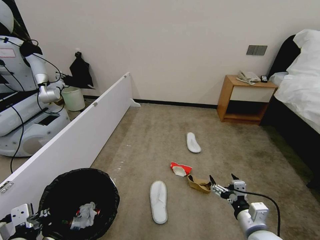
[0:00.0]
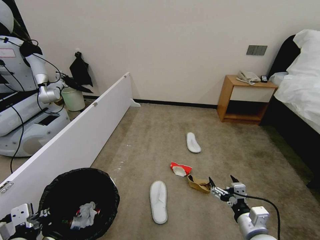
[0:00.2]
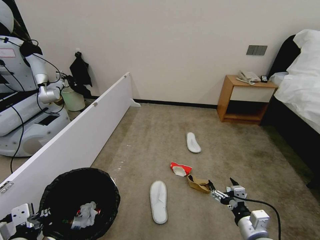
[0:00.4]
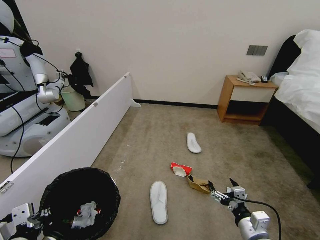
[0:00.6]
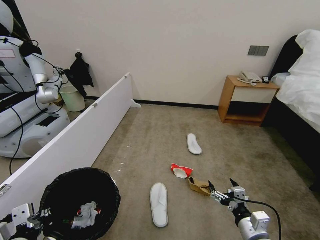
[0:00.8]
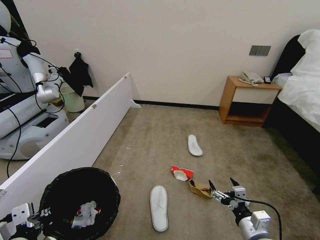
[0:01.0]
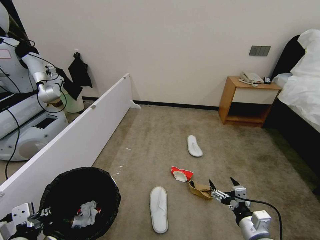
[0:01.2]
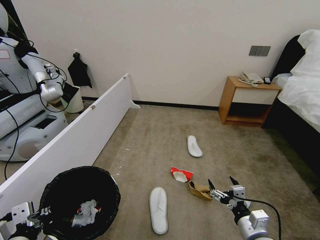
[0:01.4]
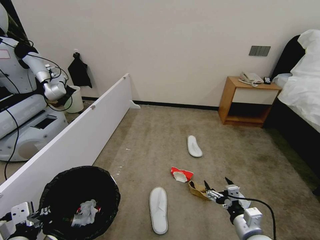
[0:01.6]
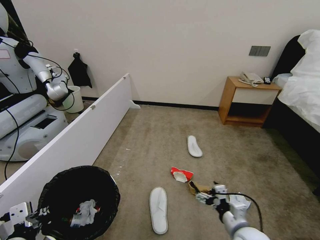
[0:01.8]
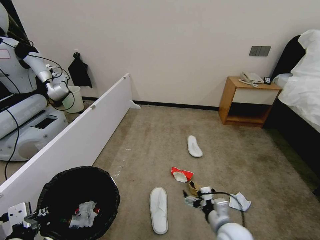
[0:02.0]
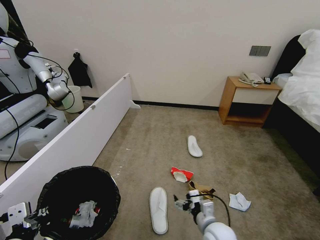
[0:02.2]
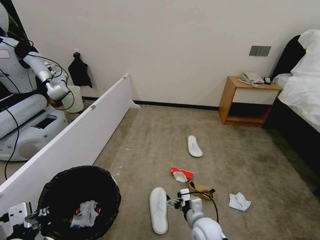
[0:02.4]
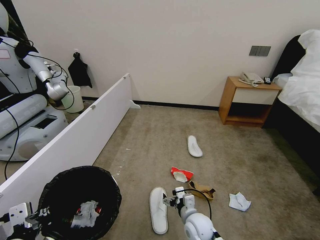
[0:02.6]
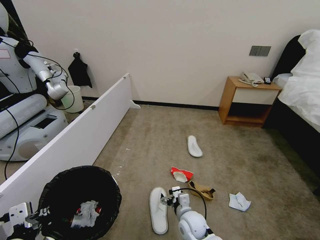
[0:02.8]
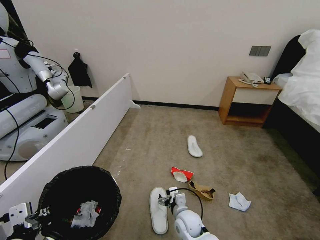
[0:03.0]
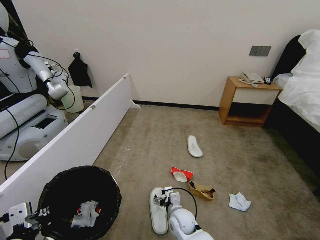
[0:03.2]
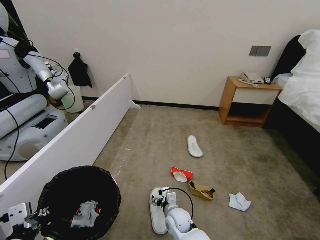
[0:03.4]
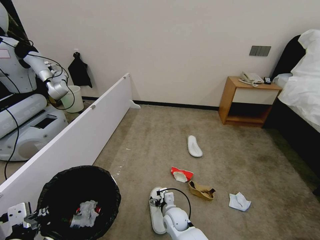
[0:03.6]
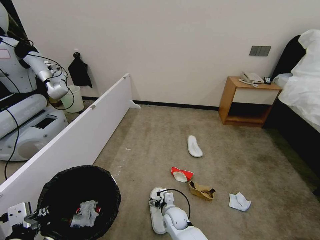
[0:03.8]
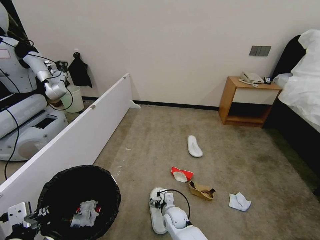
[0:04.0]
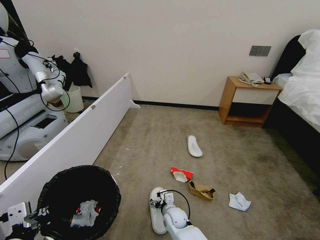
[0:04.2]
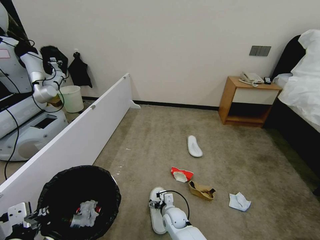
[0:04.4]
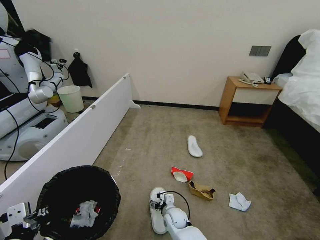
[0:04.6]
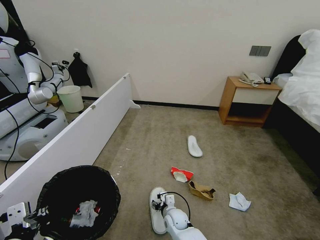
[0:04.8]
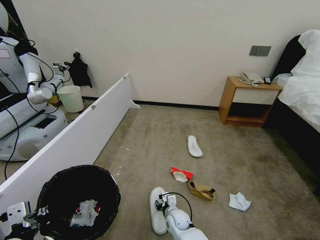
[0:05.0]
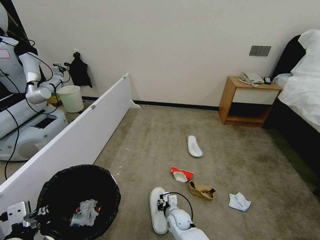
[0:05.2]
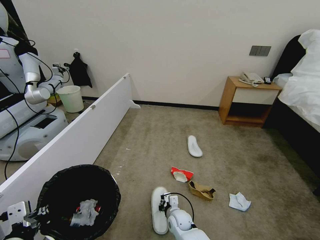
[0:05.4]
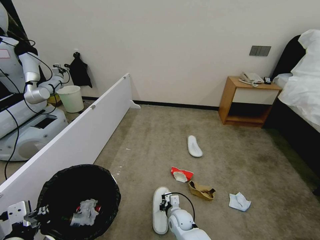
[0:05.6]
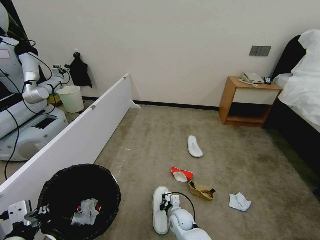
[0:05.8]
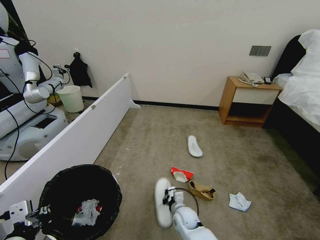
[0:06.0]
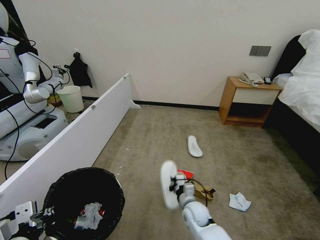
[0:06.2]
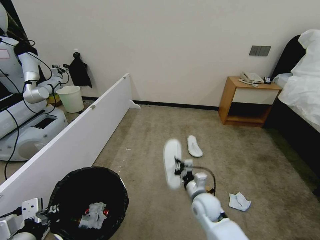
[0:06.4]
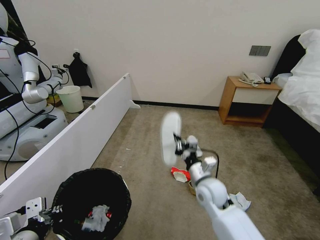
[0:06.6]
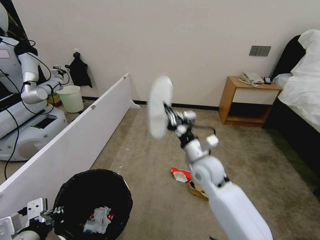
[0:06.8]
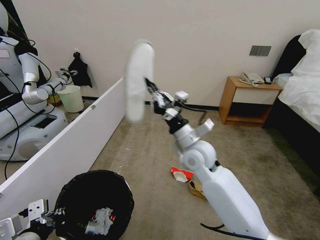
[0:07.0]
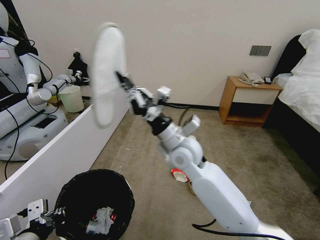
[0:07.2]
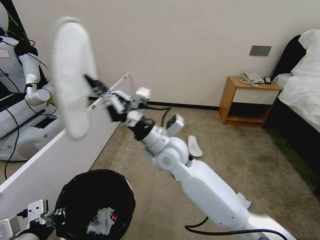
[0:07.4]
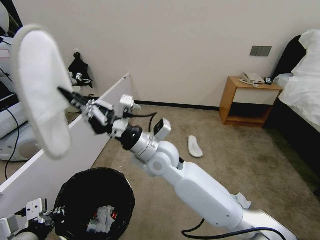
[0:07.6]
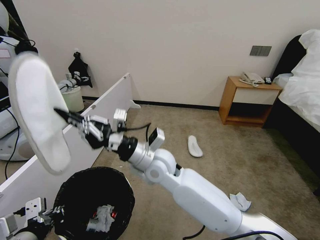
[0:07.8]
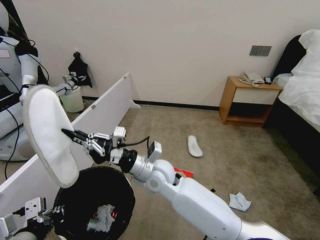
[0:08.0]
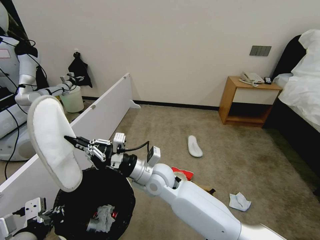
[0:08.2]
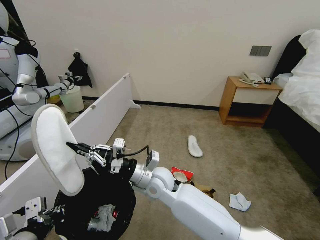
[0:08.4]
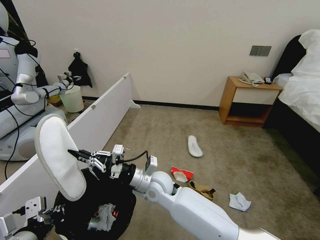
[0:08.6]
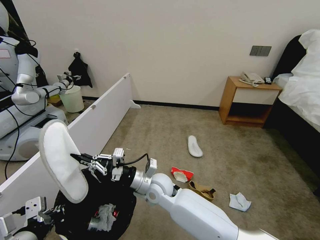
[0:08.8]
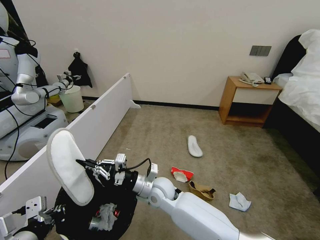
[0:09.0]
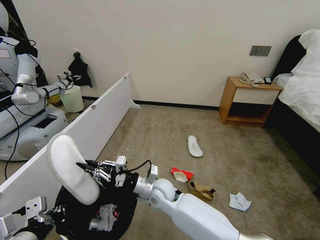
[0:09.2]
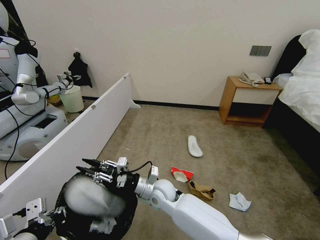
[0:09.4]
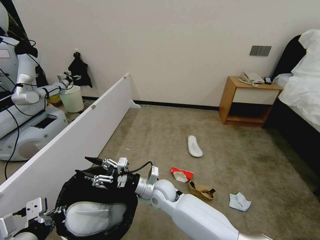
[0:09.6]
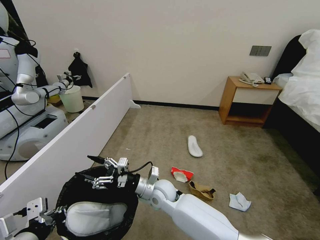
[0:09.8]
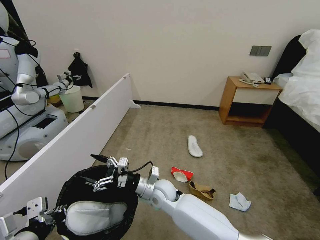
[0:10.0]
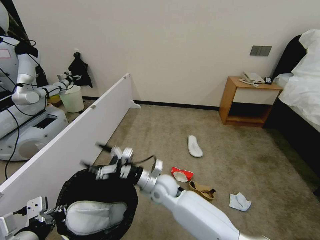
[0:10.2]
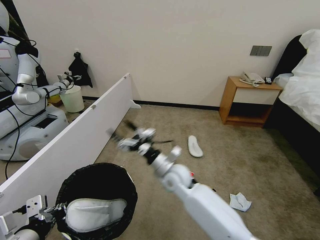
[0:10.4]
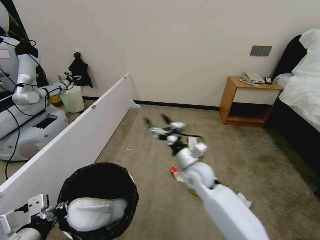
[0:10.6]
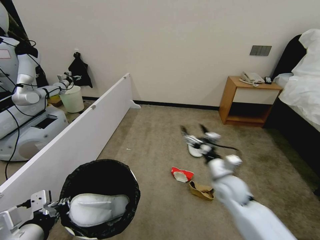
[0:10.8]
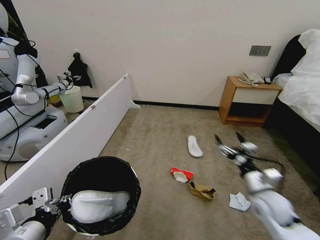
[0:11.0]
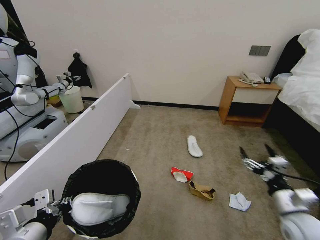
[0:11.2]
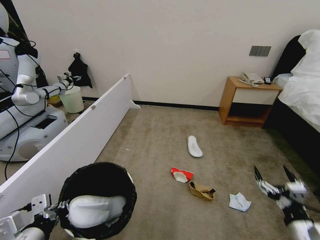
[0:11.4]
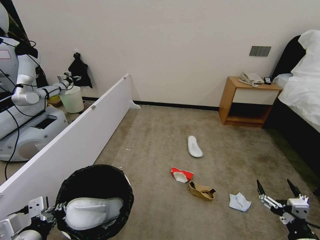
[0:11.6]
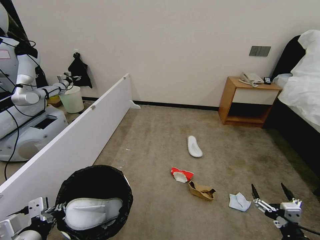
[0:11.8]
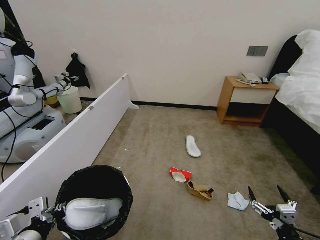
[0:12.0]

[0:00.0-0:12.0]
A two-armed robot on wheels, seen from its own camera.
Task of the whole recording: Pick up the trash bin, then pick up the garbage from the floor and place it into the trash bin.
0:00.0 to 0:01.6: The grippers stay close to where they were, moving slightly.
0:01.6 to 0:03.0: The right gripper travels to the left, forward and downward by approximately 25 cm.
0:03.0 to 0:04.4: The right gripper travels downward by some 5 cm.
0:04.4 to 0:06.0: The right gripper closes.
0:06.0 to 0:07.6: The right gripper shifts about 40 cm upward.
0:07.6 to 0:09.0: The right gripper heads downward, covering about 15 cm.
0:09.0 to 0:10.4: The right gripper travels to the right by some 5 cm, and opens its fingers.
0:10.4 to 0:12.0: The right gripper goes approximately 40 cm to the right and backward.

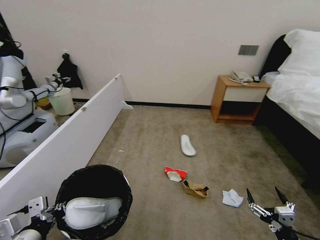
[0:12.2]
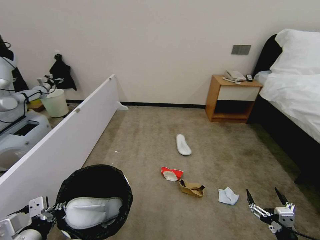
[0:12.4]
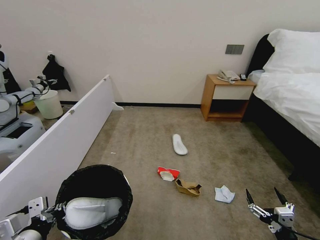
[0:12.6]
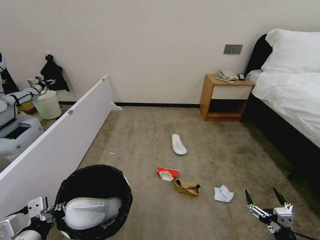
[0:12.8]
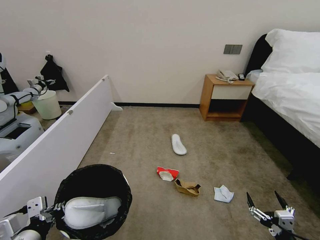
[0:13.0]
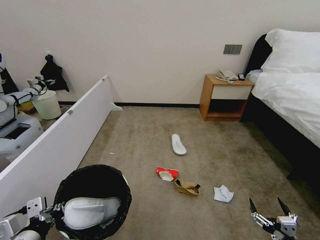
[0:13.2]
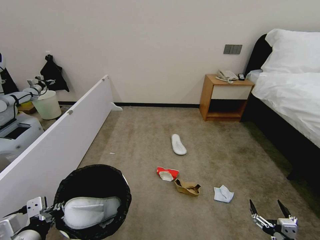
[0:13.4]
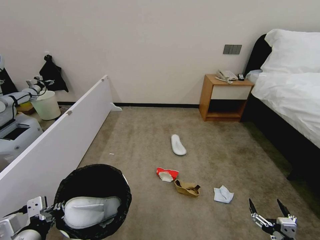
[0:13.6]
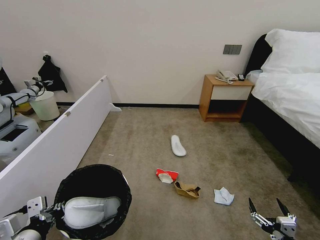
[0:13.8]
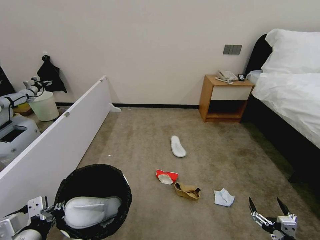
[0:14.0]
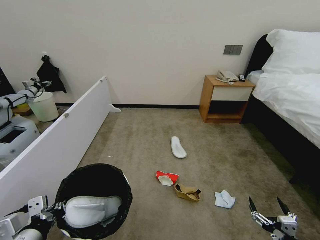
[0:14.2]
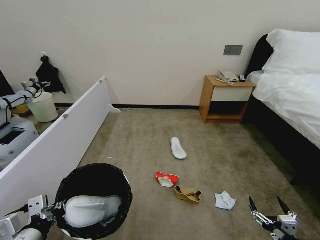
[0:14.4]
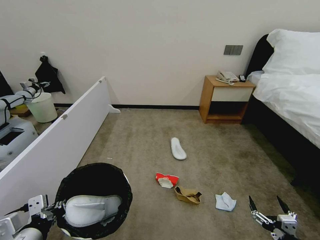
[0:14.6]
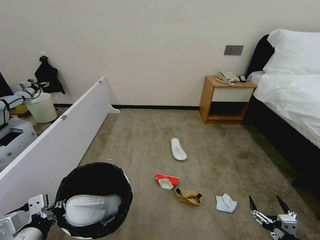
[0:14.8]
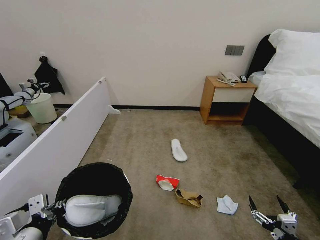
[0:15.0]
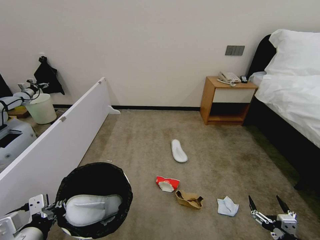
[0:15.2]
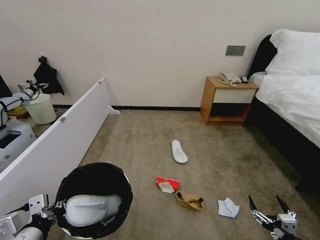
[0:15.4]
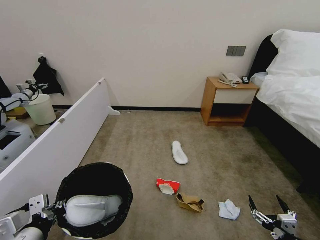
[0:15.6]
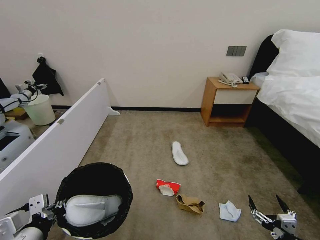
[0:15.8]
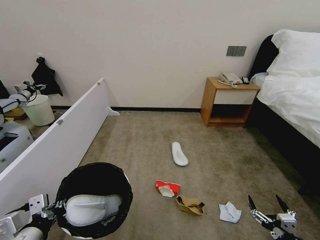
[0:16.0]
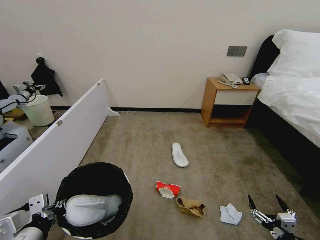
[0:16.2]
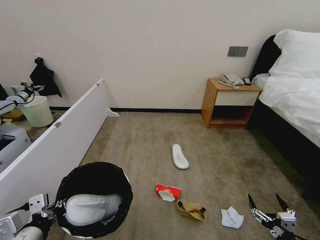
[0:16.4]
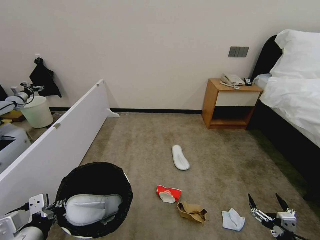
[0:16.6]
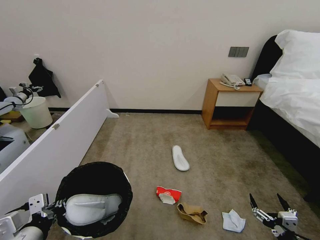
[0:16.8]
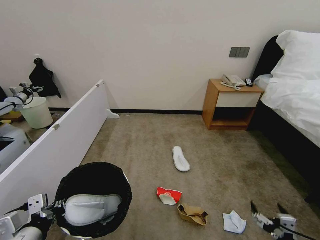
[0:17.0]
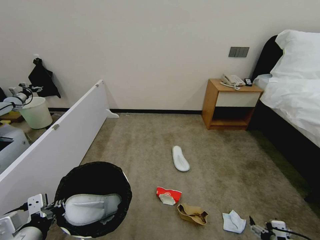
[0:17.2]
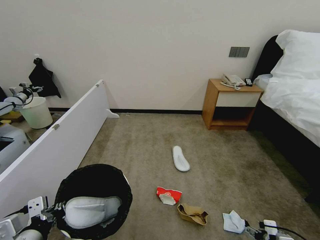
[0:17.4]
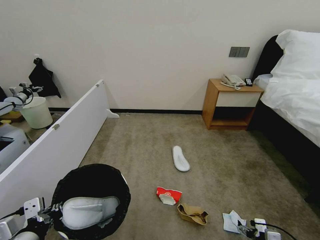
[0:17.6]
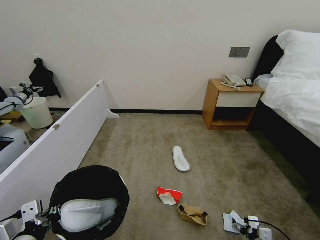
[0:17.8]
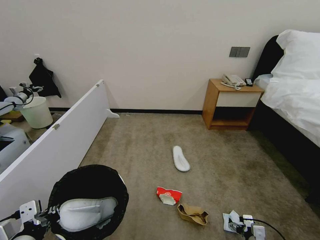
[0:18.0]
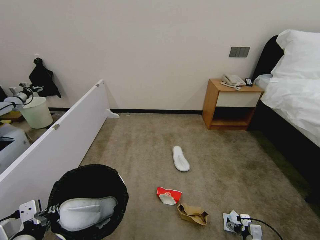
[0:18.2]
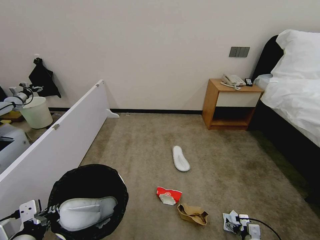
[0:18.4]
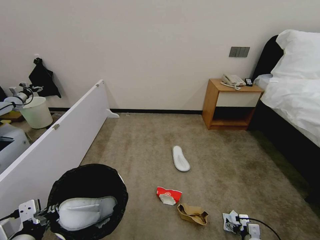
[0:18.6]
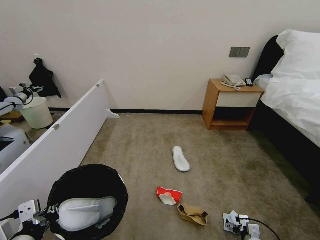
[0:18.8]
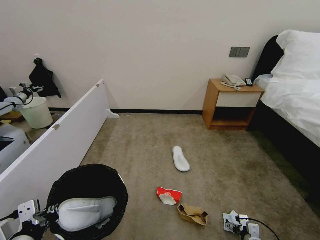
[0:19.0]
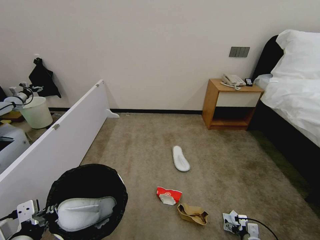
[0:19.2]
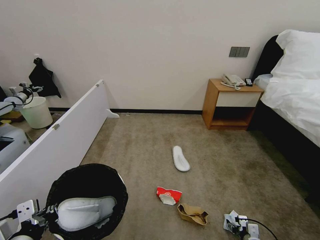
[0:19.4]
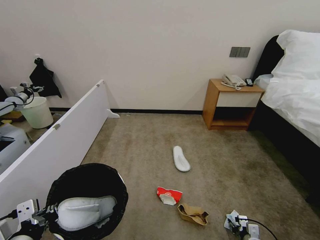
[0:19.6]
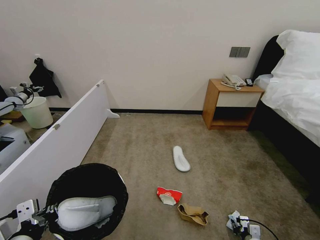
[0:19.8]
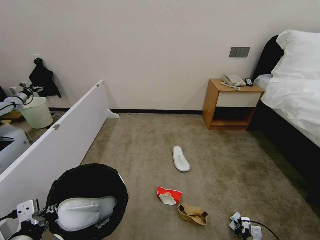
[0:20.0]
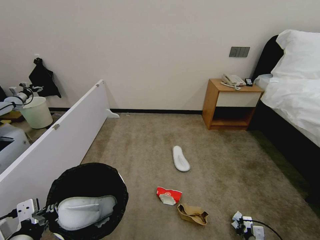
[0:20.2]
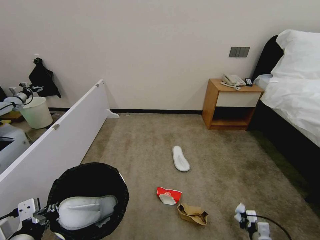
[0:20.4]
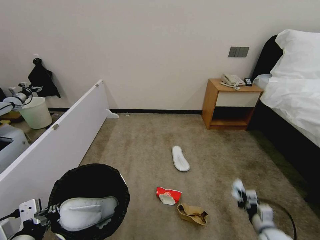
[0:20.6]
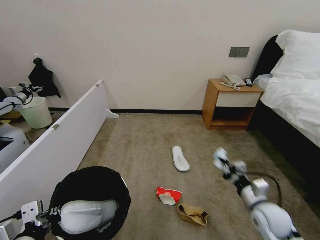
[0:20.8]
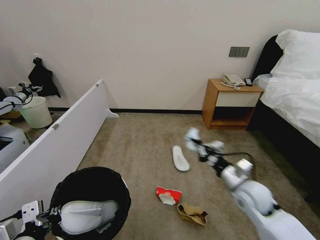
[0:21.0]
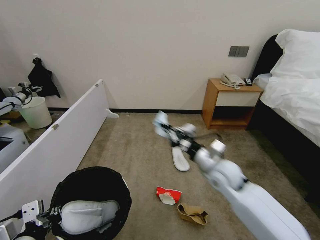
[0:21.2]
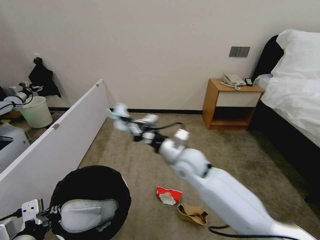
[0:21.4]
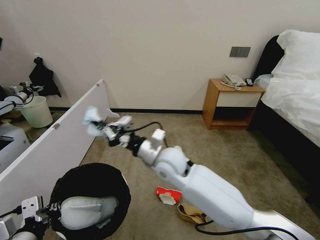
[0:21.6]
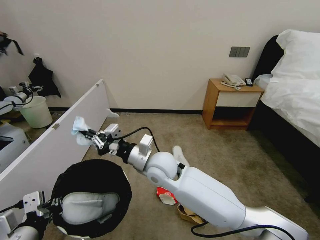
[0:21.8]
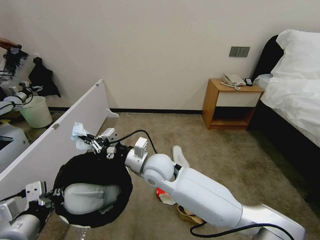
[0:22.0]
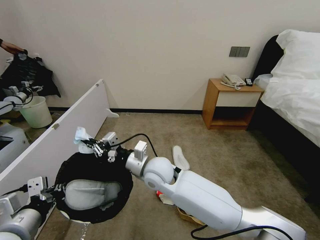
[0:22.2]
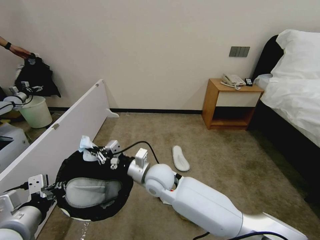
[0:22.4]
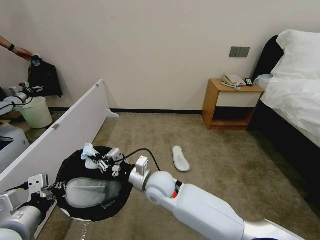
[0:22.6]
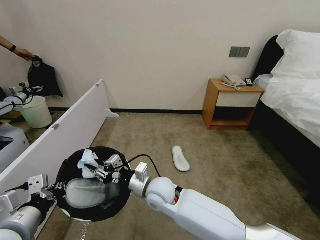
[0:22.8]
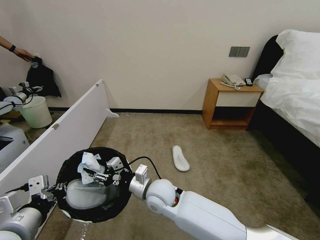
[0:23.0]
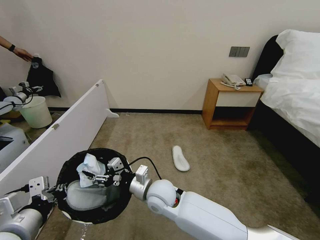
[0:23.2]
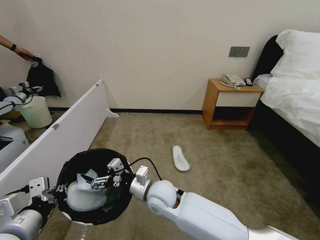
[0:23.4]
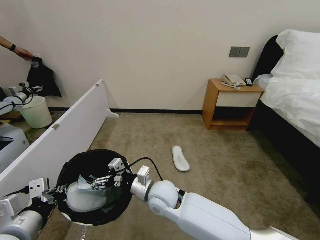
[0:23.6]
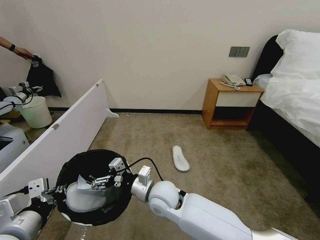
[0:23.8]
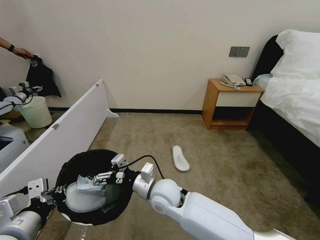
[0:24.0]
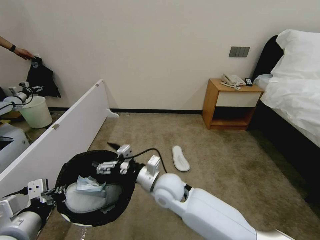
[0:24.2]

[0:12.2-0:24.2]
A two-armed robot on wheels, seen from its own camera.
Task of the whole recording: Pick up the trash bin, then pick up the garbage from the floor and place it into the trash bin.
0:13.8 to 0:15.2: The two grippers keep their place.
0:15.2 to 0:16.6: Neither gripper changes place.
0:16.6 to 0:18.2: The right gripper is displaced downward and forward by about 15 cm.
0:18.2 to 0:19.8: The right gripper closes.
0:19.8 to 0:21.2: The right gripper is displaced upward, to the left and forward by approximately 40 cm, and closes up.
0:21.2 to 0:22.6: The right gripper travels to the left by roughly 20 cm, while the left gripper changes place by approximately 5 cm.
0:22.6 to 0:24.2: The right gripper opens up.
